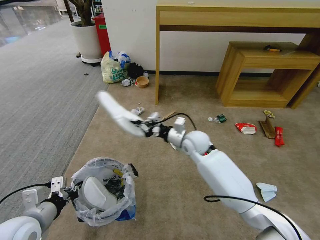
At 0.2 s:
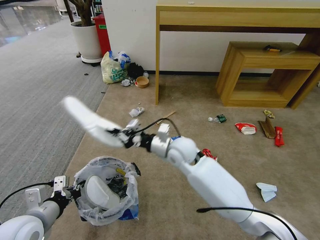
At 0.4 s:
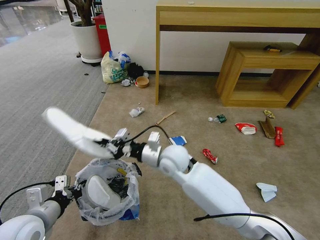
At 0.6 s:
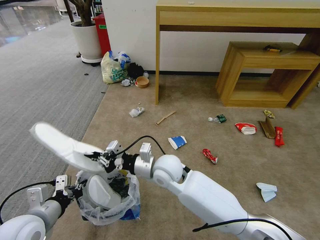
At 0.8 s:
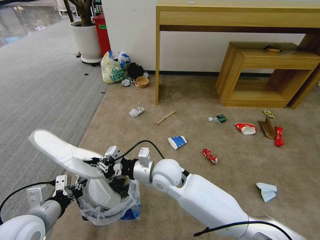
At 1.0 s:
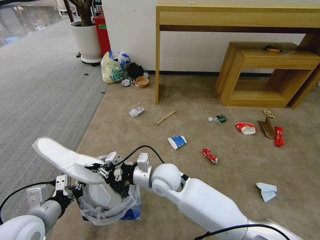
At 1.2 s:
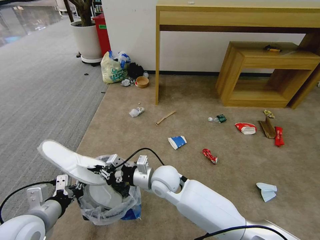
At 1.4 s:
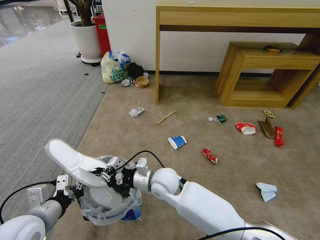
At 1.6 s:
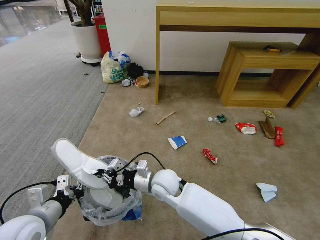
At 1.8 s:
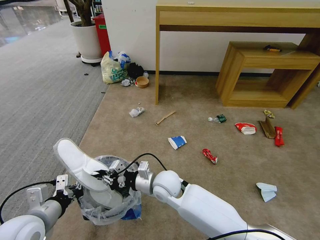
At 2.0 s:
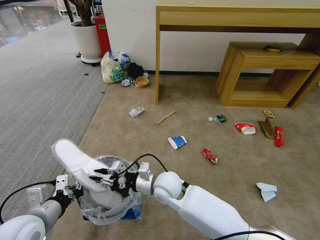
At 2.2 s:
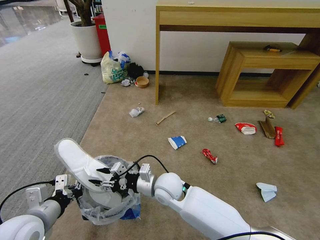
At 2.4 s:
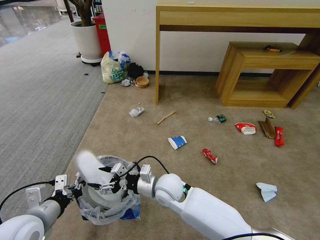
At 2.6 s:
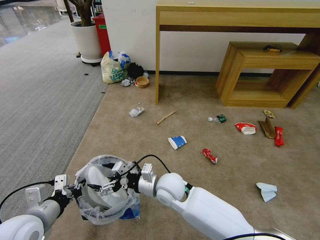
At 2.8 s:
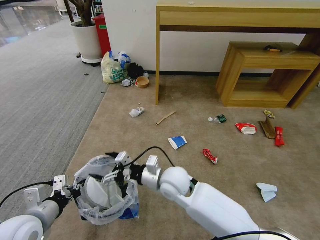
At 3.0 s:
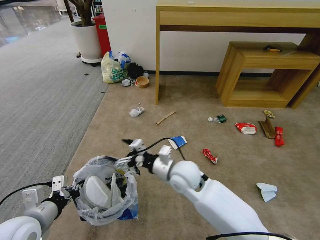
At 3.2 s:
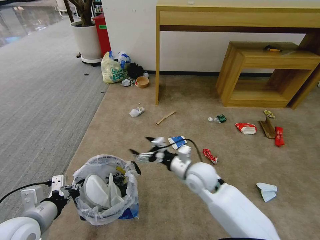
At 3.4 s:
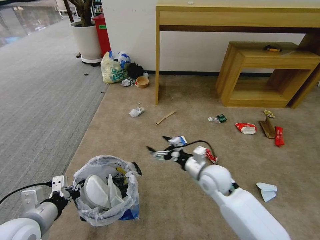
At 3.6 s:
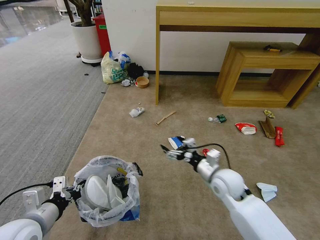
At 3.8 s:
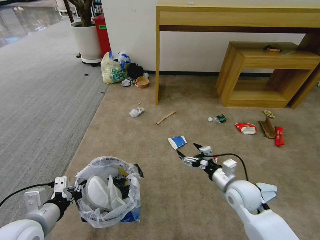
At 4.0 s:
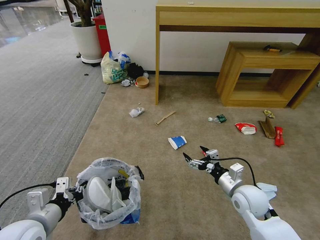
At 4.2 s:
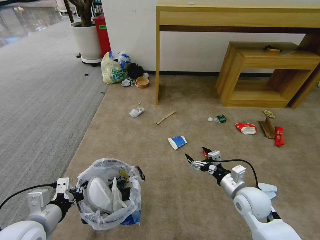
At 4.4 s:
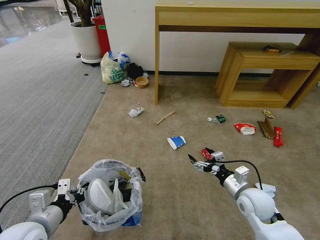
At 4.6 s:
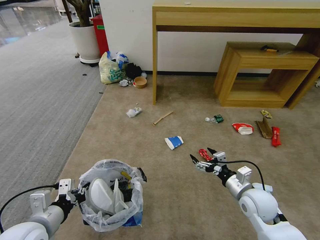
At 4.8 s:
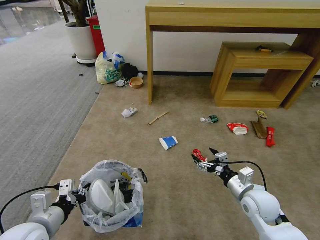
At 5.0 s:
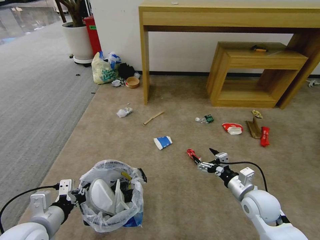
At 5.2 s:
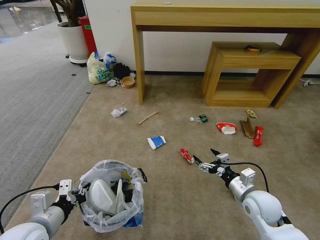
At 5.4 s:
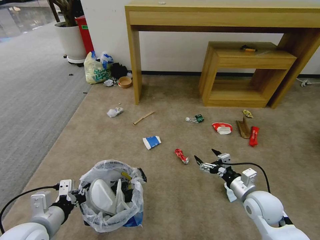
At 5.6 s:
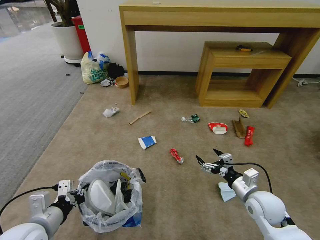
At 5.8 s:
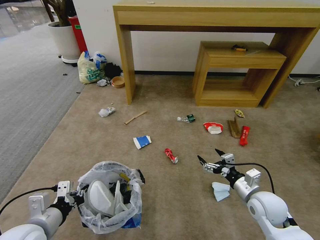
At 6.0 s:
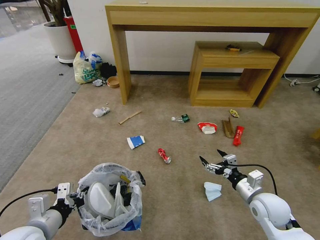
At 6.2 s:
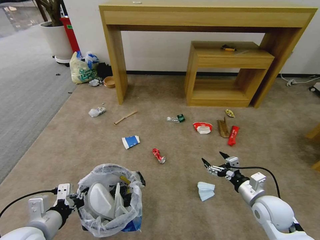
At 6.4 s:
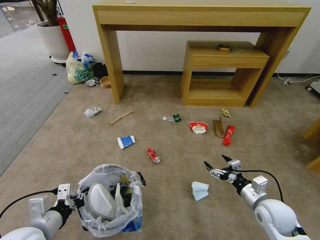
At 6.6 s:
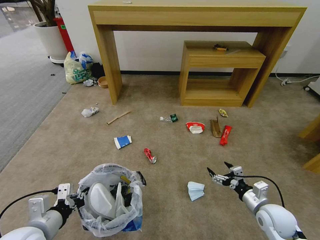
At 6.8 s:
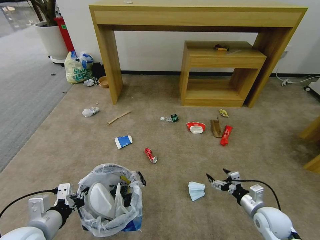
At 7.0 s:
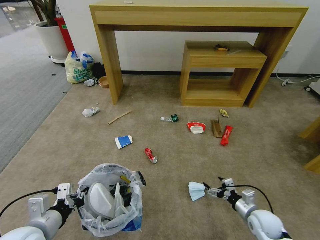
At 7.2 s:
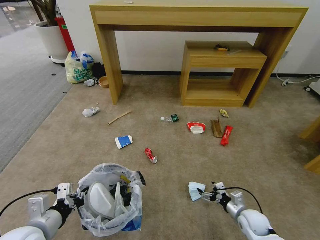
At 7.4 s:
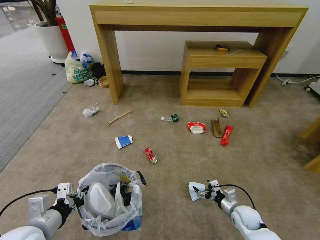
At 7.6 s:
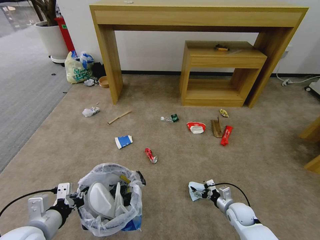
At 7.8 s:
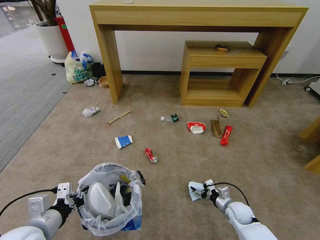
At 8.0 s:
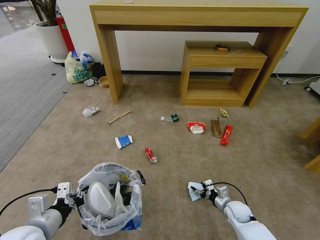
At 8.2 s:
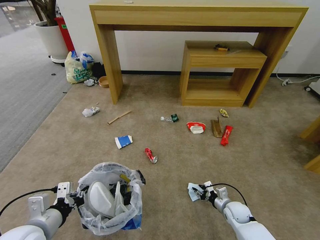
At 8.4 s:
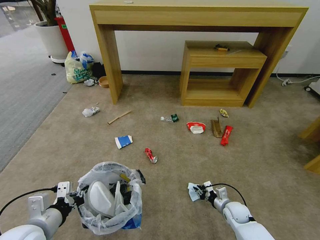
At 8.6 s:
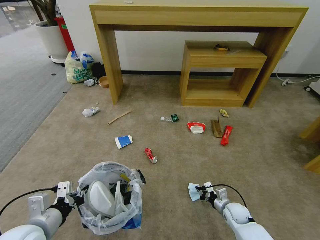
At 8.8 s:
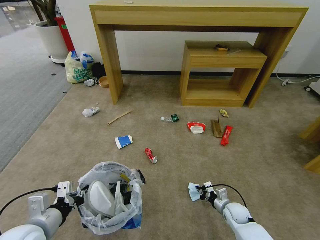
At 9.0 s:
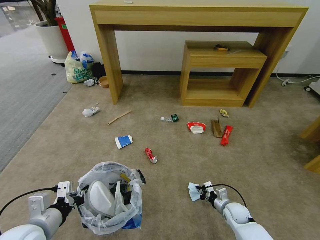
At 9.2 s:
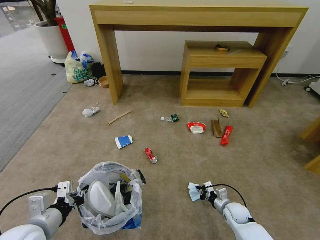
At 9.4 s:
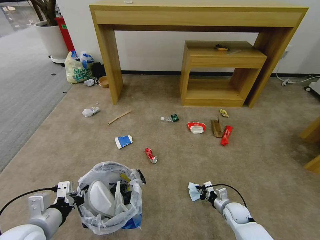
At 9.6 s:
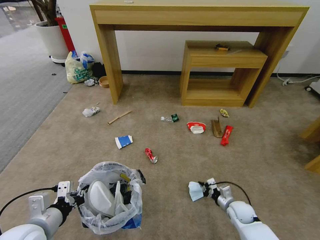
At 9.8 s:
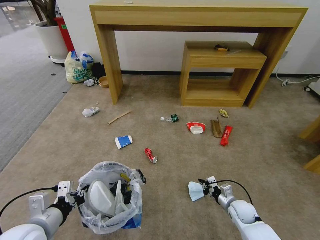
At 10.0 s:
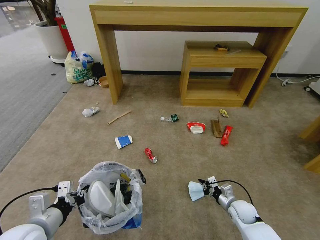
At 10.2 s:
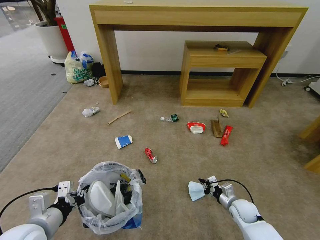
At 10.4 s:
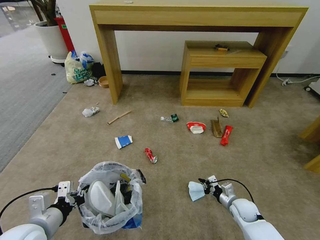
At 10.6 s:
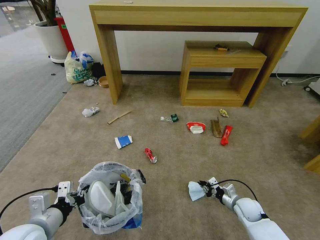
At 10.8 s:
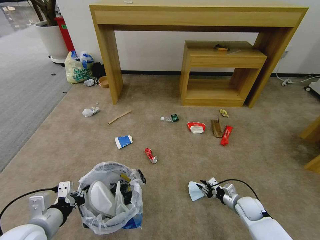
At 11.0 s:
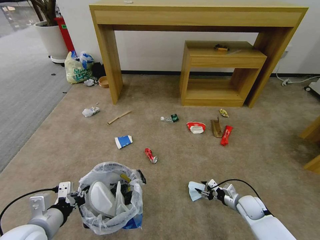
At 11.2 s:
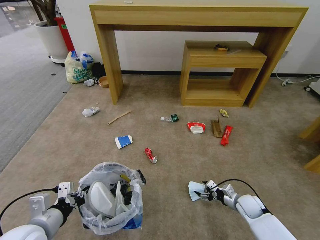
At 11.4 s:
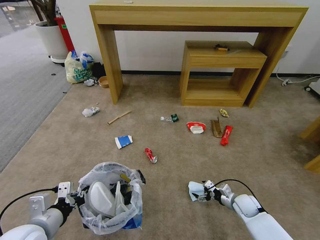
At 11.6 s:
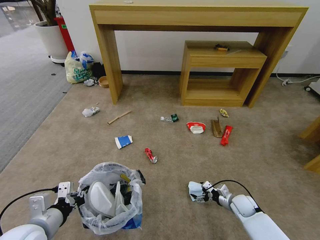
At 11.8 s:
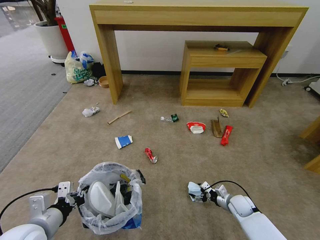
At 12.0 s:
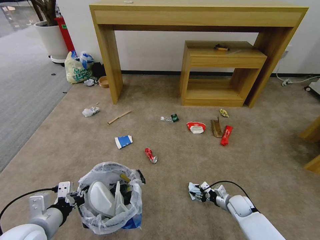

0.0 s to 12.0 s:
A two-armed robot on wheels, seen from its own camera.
Task of the whole recording: Pick up the trash bin and place the garbage on the floor into it.
0.0 to 1.6 s: The right gripper shifts roughly 20 cm backward, to the left and downward.
1.6 to 3.0 s: The right gripper travels upward and to the right by approximately 5 cm, and opens up.
3.0 to 4.4 s: The right gripper heads to the right, covering approximately 25 cm.
6.0 to 7.6 s: The right gripper travels downward by some 15 cm.
7.6 to 9.0 s: The right gripper closes its fingers.
9.0 to 10.4 s: The grippers make only small movements.
10.4 to 12.0 s: The right gripper opens its fingers.

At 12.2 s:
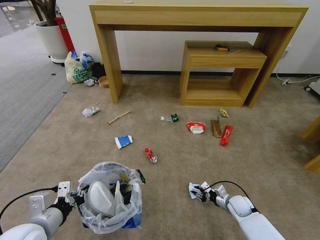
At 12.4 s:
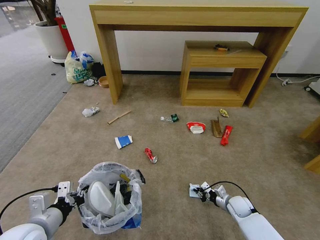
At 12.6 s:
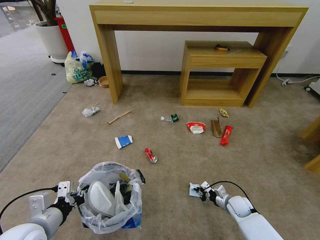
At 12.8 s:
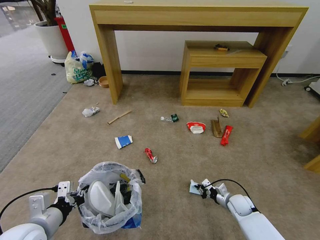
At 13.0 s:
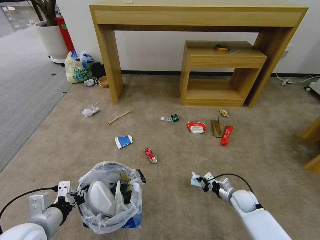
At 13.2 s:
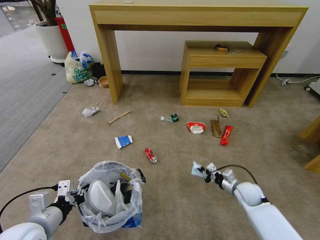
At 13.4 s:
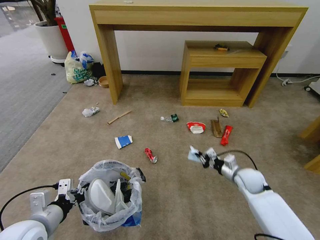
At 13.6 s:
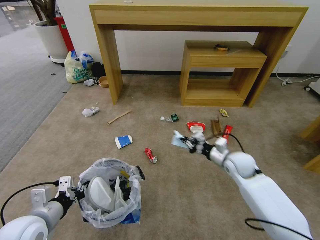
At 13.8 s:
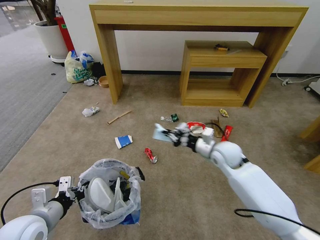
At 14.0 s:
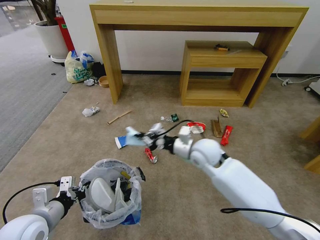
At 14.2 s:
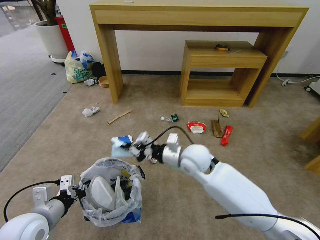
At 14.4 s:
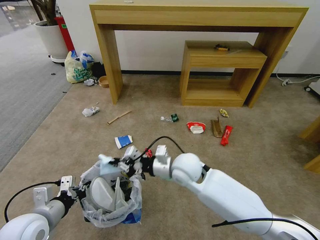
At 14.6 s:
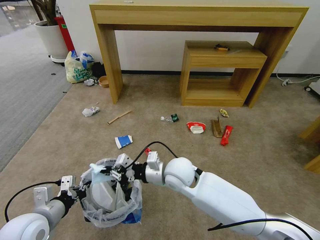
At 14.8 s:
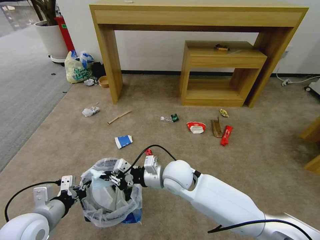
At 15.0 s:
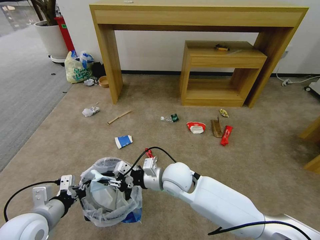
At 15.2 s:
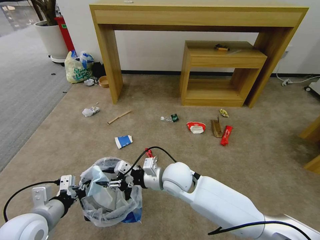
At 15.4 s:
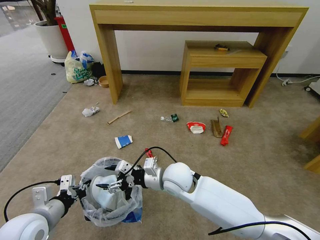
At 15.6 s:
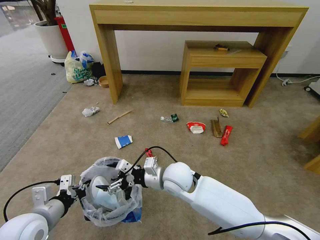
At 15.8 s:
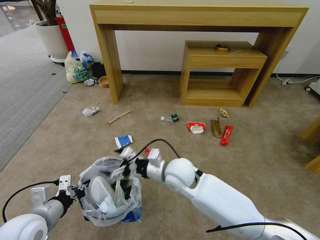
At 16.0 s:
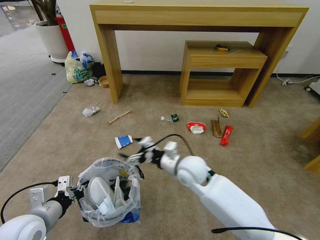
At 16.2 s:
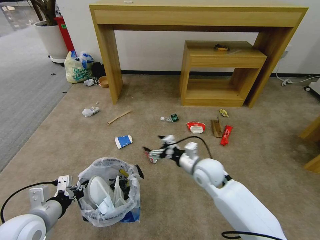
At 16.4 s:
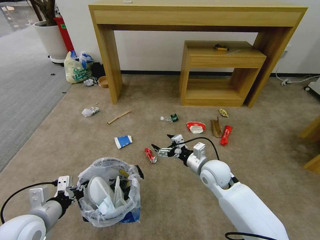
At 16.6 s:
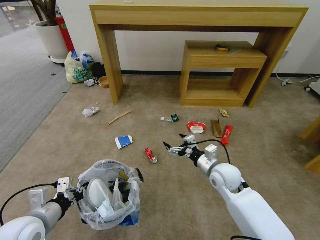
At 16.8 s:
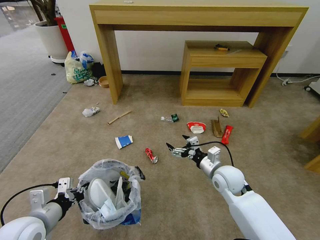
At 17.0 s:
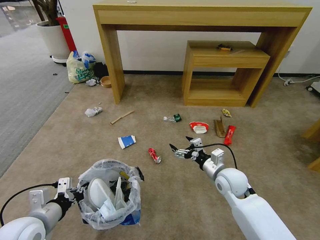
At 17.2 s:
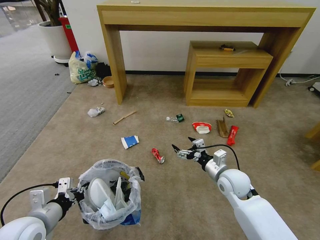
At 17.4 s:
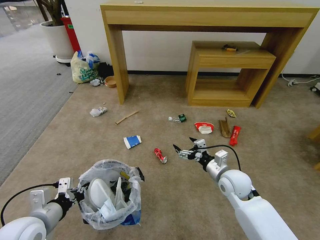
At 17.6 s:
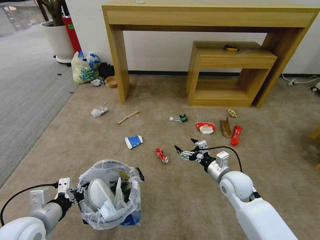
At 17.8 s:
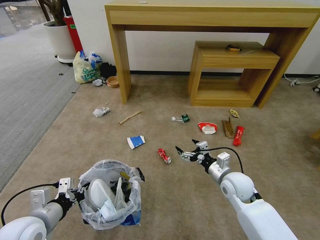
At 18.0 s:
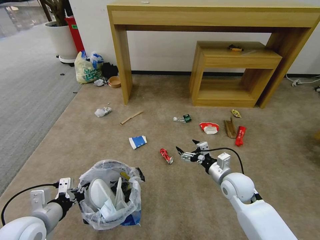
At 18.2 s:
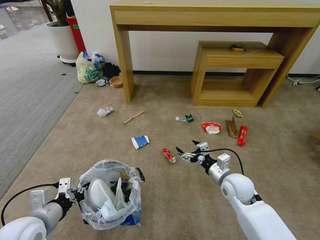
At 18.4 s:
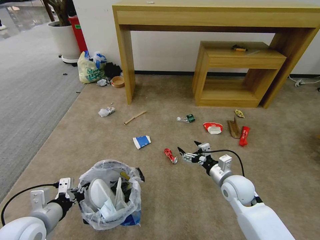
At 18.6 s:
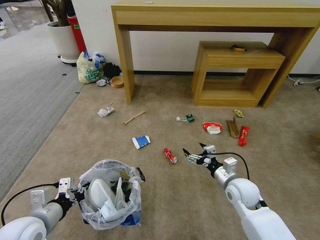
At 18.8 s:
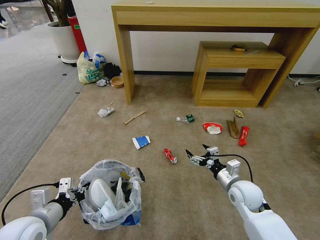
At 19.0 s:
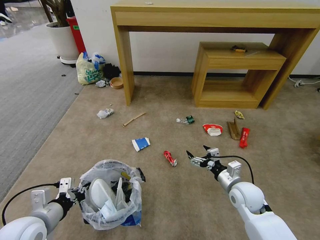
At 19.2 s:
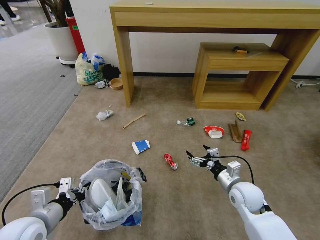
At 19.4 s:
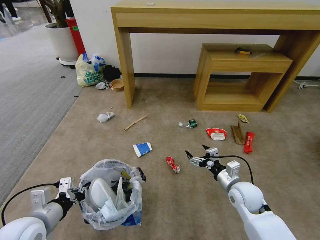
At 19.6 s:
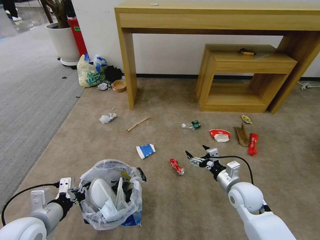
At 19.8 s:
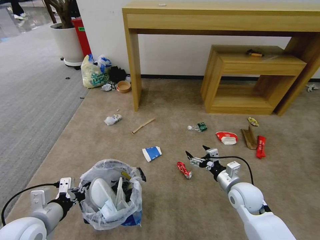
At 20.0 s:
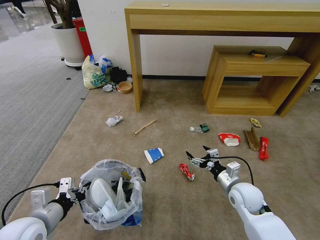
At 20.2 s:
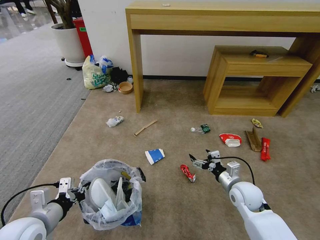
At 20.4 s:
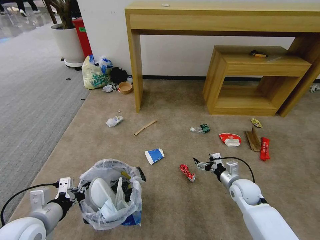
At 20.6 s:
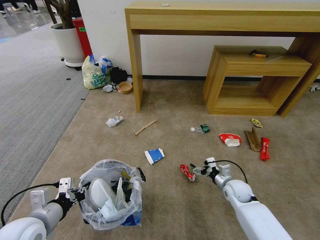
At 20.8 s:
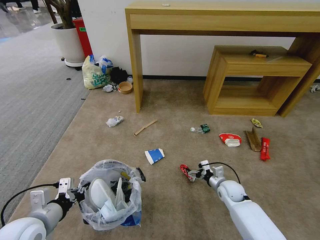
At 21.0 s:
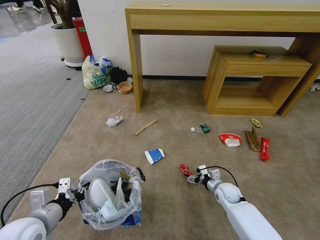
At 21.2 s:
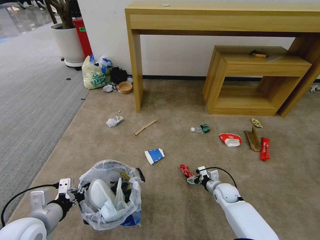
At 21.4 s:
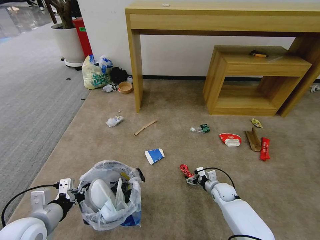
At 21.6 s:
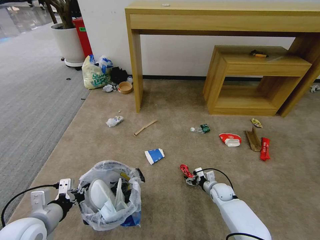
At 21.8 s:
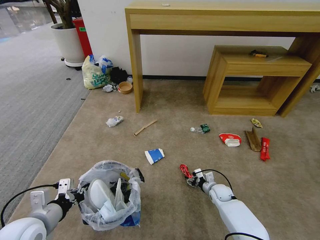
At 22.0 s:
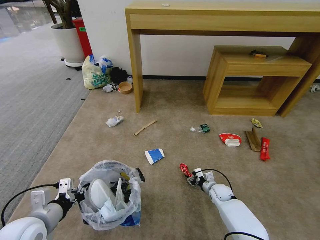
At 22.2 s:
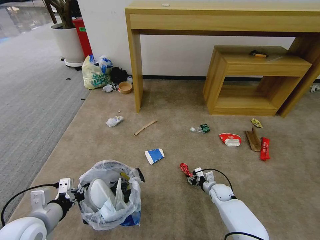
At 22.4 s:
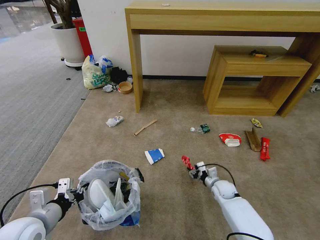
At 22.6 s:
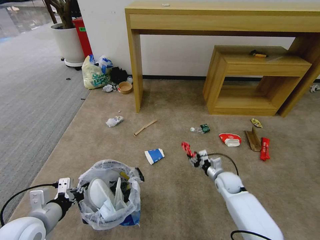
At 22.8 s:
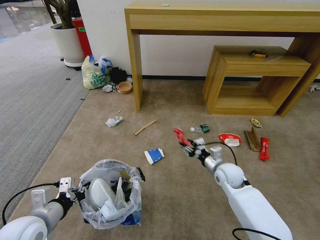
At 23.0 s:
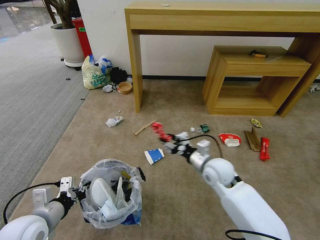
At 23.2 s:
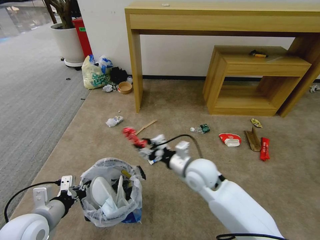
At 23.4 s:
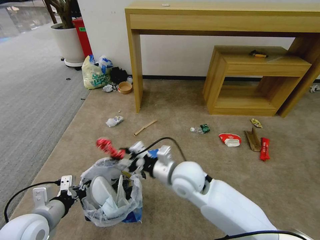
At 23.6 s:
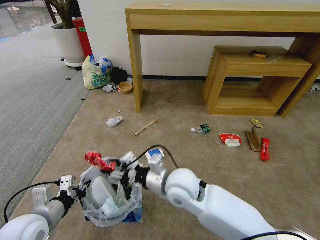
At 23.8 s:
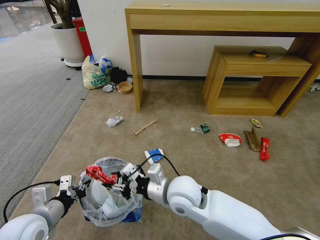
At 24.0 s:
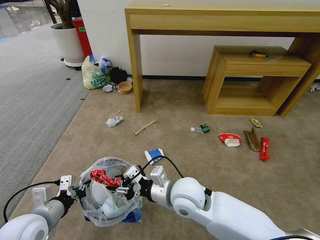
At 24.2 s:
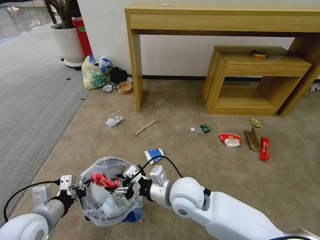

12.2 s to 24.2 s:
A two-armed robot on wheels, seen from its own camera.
Task of the whole recording: Pick up the trash bin and place the garbage on the floor into it.
12.2 to 13.8 s: The right gripper moves upward and to the left, some 30 cm.
13.8 to 15.2 s: The right gripper heads to the left and backward, covering some 20 cm, and opens.
15.2 to 16.6 s: The right gripper is displaced to the right by roughly 15 cm, and opens its fingers.
16.6 to 18.2 s: The right gripper shifts by some 5 cm.
19.8 to 21.2 s: The right gripper travels downward and forward by about 15 cm.
21.2 to 22.6 s: The right gripper travels upward by approximately 5 cm, and closes up.
22.6 to 24.2 s: The right gripper heads to the left, upward and backward, covering about 30 cm.
